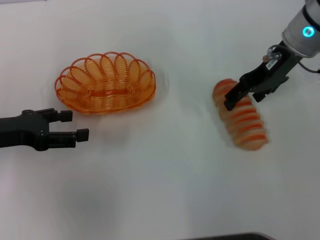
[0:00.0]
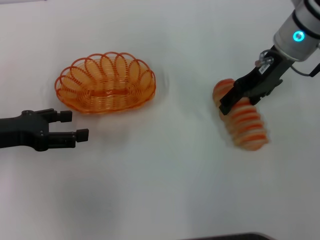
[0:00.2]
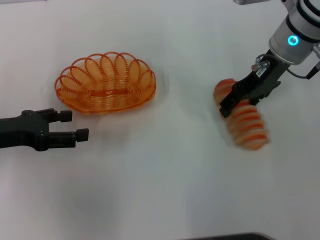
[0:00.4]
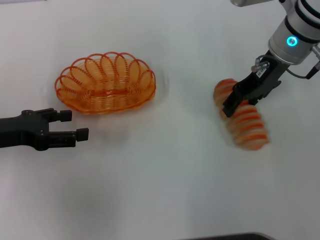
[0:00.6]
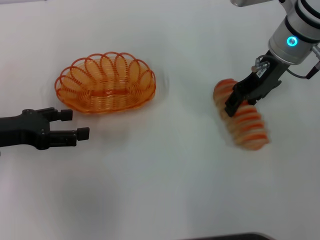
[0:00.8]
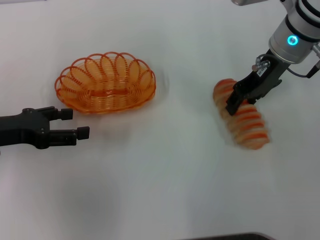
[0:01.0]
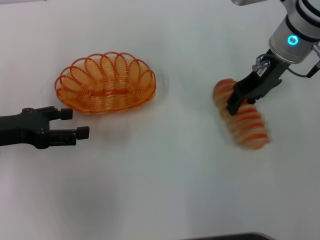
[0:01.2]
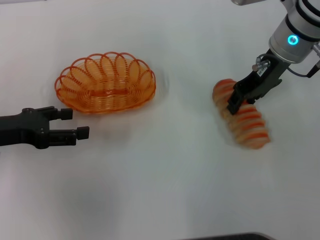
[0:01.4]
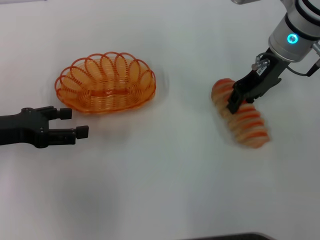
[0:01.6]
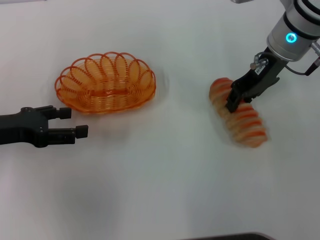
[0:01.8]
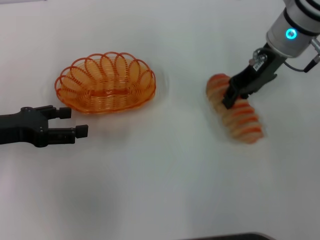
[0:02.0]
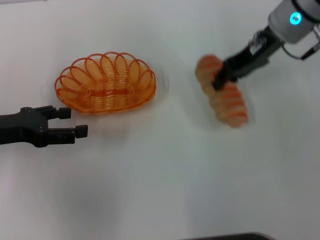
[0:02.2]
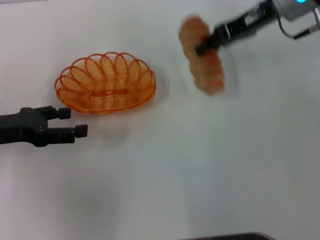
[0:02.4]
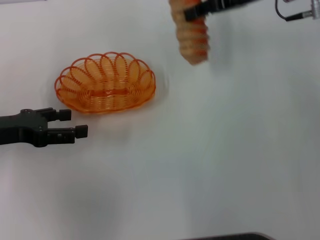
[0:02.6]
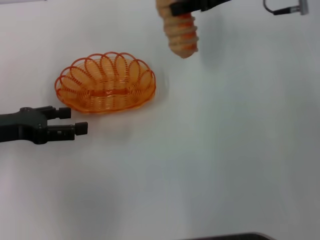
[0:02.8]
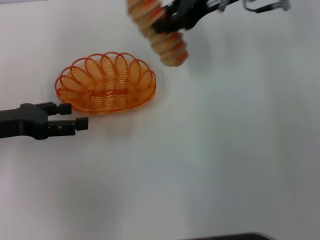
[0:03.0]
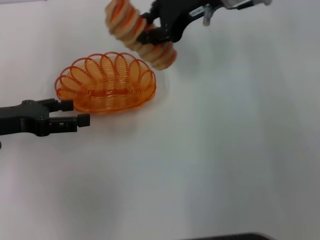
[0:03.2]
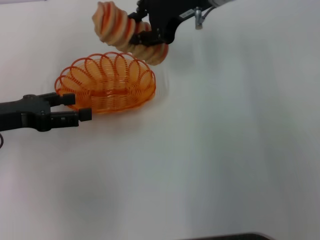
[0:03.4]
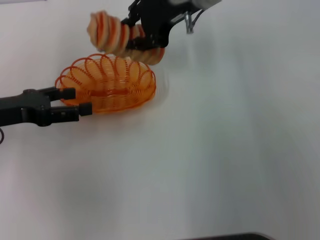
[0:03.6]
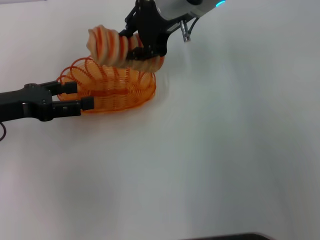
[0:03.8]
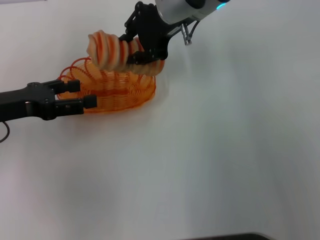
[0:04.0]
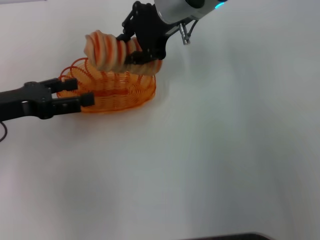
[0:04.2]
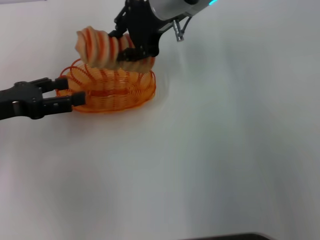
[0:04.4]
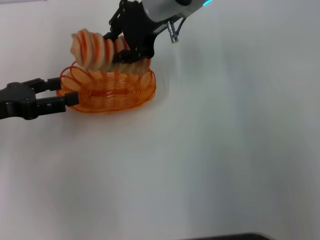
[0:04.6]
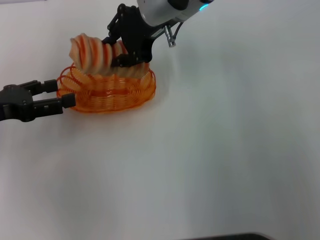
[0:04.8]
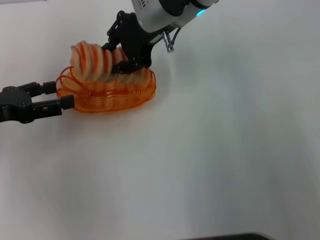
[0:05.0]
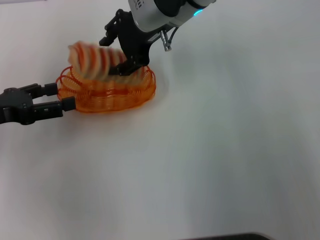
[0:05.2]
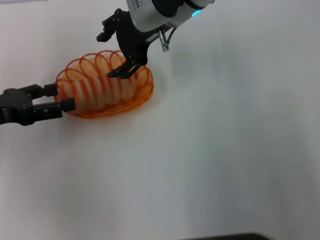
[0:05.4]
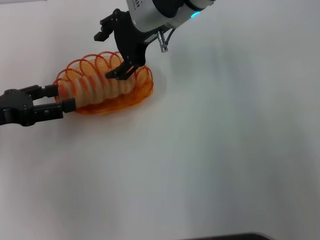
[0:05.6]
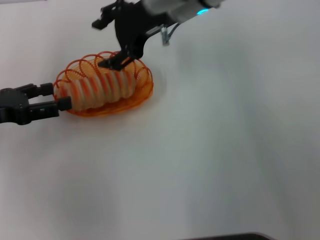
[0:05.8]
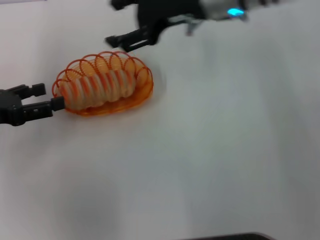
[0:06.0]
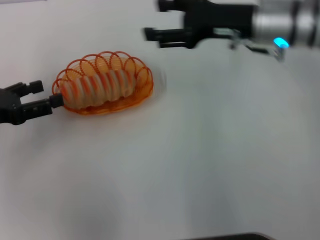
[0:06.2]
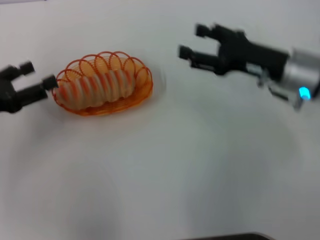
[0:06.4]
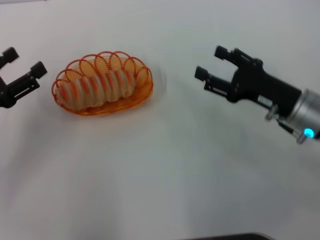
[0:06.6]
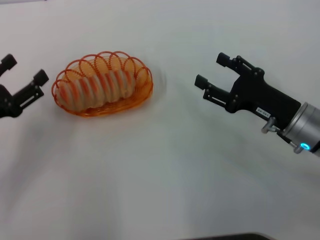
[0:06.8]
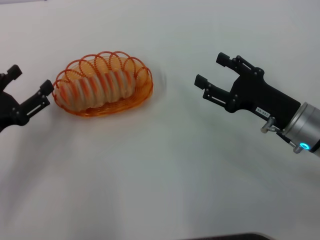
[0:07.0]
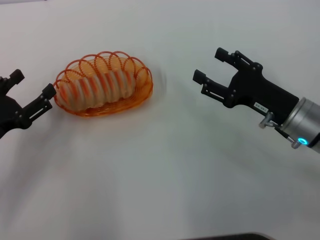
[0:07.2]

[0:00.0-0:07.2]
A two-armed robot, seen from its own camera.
Step, 0:00.0 to 0:02.0: Pick up the long bread with the right gripper.
Step, 0:02.2 to 0:05.8: Place the long bread into the basket with the right gripper.
0:00.0 to 0:01.4: The right gripper closes up.
0:01.4 to 0:02.8: The right gripper ends up about 5 cm from where it was.
0:02.8 to 0:04.4: The right gripper is displaced to the left by roughly 10 cm.
0:04.4 to 0:05.8: The right gripper opens up.
0:05.8 to 0:07.2: The left gripper is displaced downward and backward by some 10 cm. Meanwhile the right gripper is displaced to the right, backward and downward by about 25 cm.
